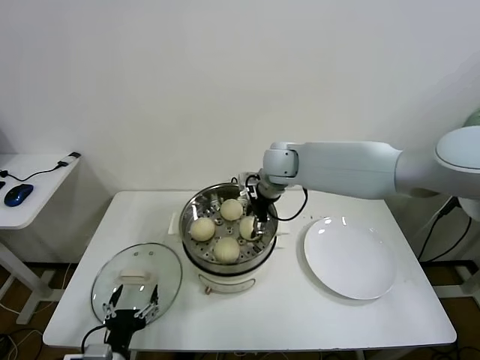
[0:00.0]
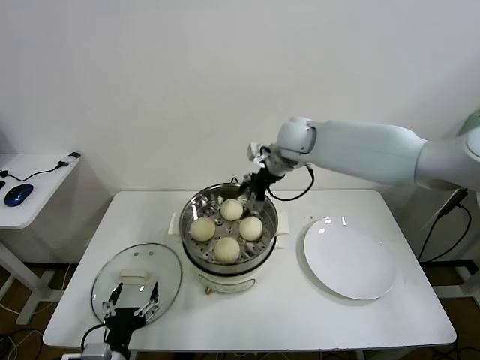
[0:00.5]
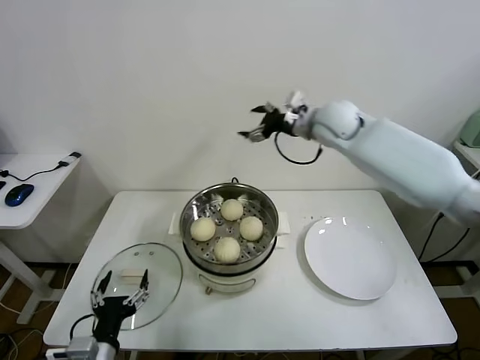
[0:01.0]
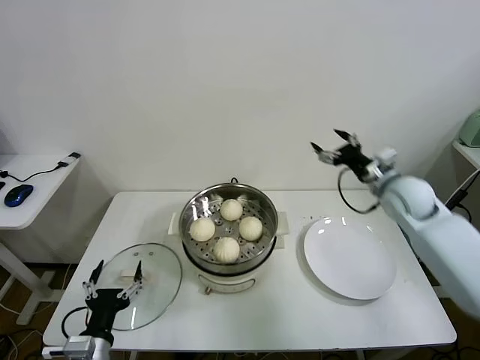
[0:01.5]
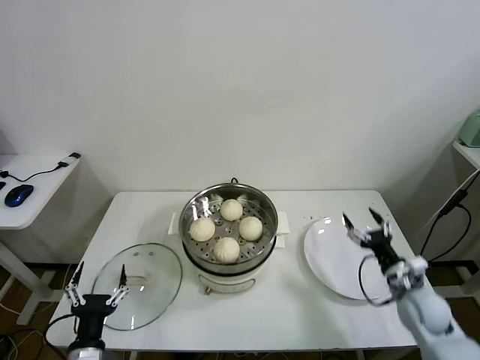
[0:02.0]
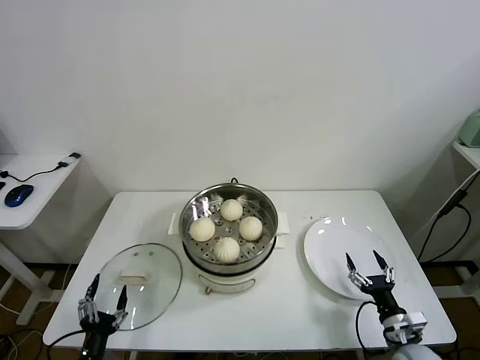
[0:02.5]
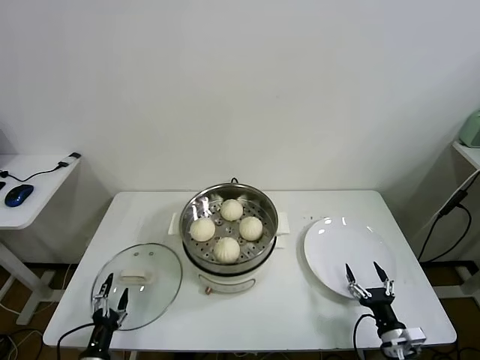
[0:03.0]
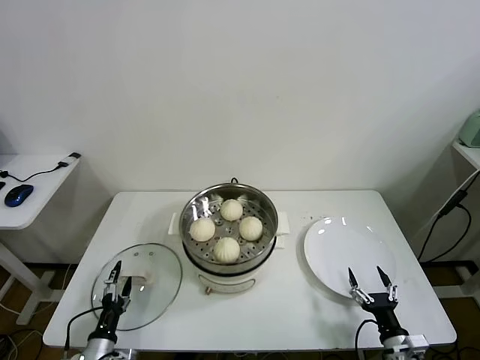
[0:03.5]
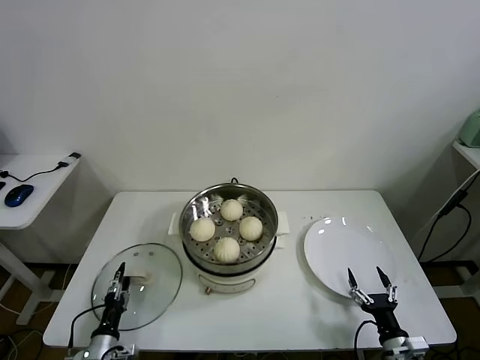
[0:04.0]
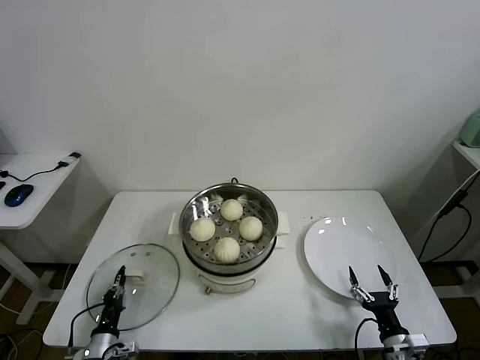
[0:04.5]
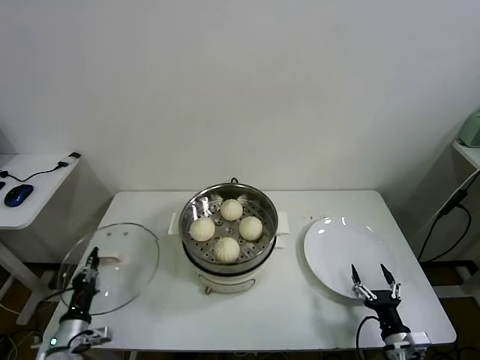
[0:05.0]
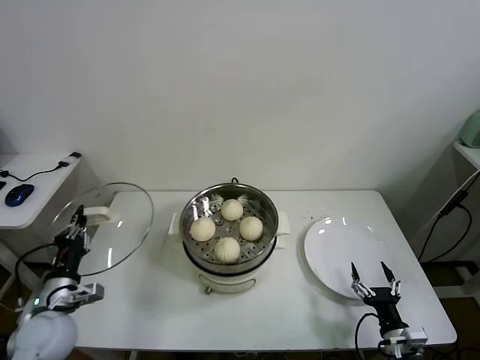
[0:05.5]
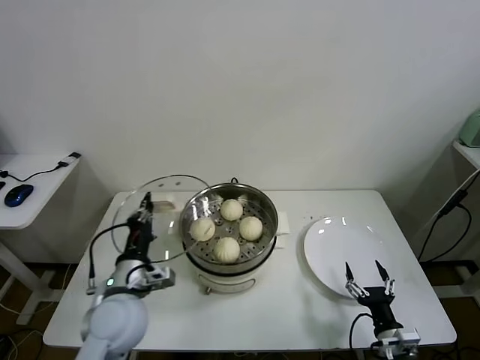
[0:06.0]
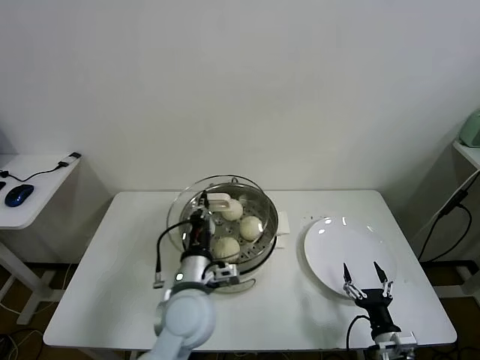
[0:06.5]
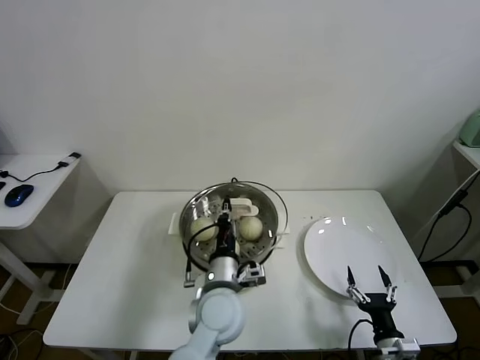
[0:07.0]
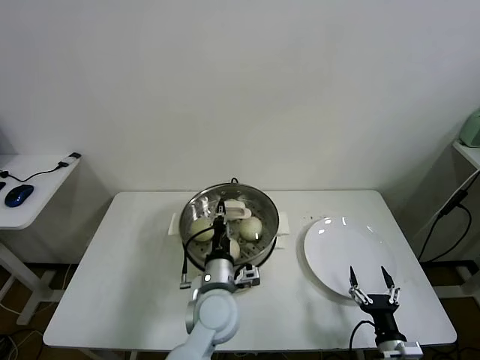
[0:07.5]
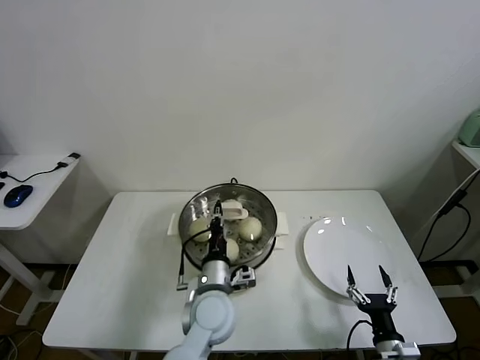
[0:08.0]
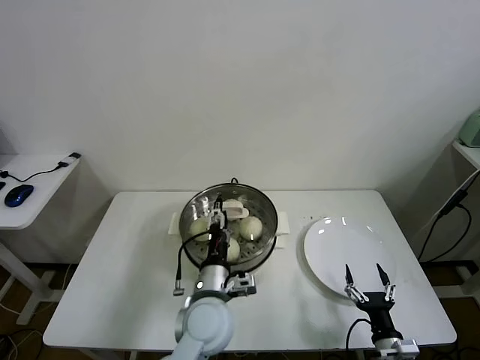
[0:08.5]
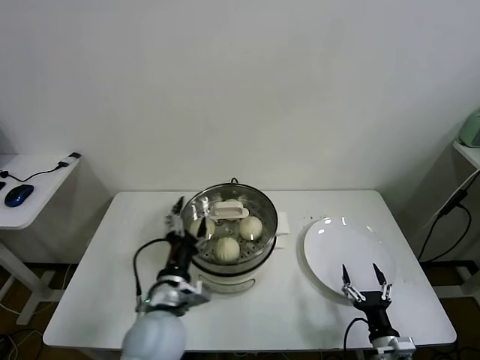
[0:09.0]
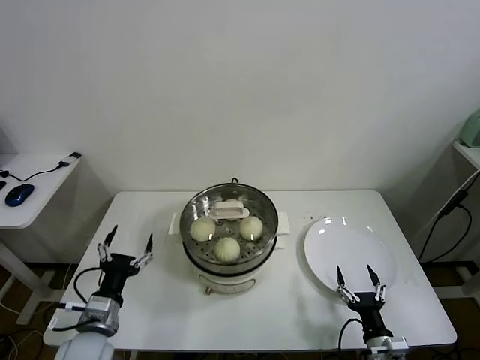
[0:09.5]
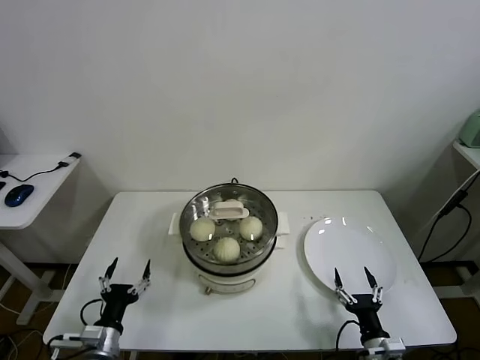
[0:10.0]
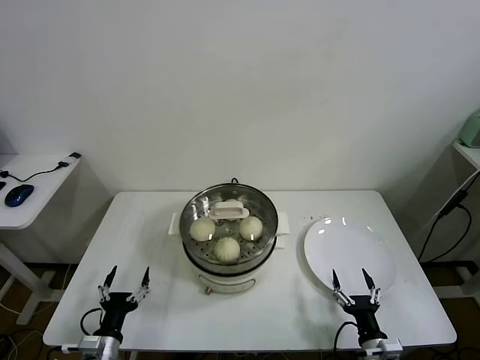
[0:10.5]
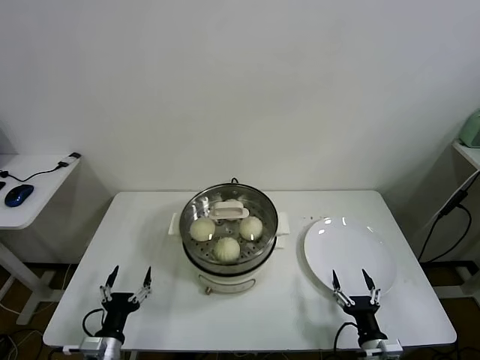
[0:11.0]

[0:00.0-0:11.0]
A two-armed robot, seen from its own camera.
Task of the whole recording: take steamed baozi put them in steamer.
Step, 0:00.5 to 0:04.5: Grasp the pot lid with left gripper.
Step, 0:05.0 to 0:08.5: Place the pot lid on the steamer with left gripper.
0:00.0 to 0:02.0: The right gripper travels to the right, backward and downward by roughly 50 cm, and opens up.
0:02.0 to 0:03.5: The right gripper is displaced backward and downward by approximately 15 cm. Meanwhile the left gripper goes approximately 15 cm downward and to the left.
0:03.5 to 0:05.5: The left gripper travels upward by about 15 cm, and closes its fingers.
0:05.5 to 0:07.5: The left gripper travels to the right by about 35 cm.
0:07.5 to 0:09.0: The left gripper travels to the left and backward by some 10 cm, and opens its fingers.
0:09.0 to 0:11.0: The left gripper heads to the left and downward, covering roughly 25 cm.
